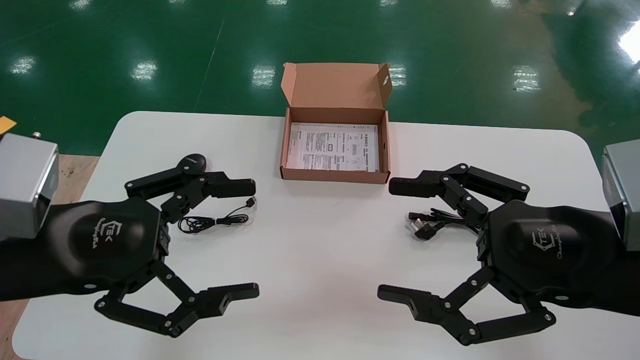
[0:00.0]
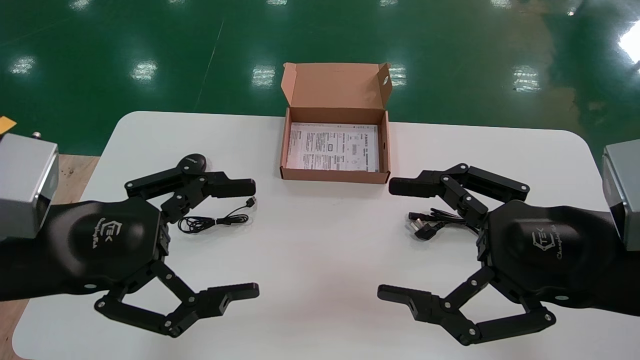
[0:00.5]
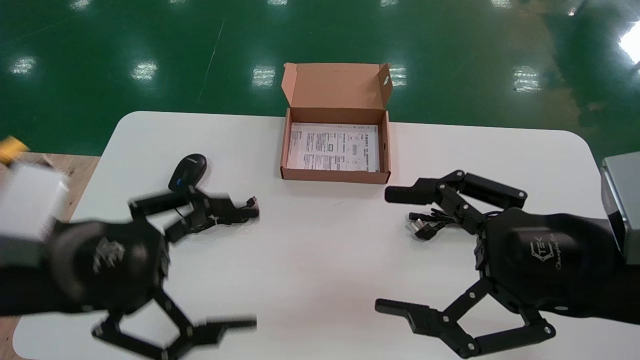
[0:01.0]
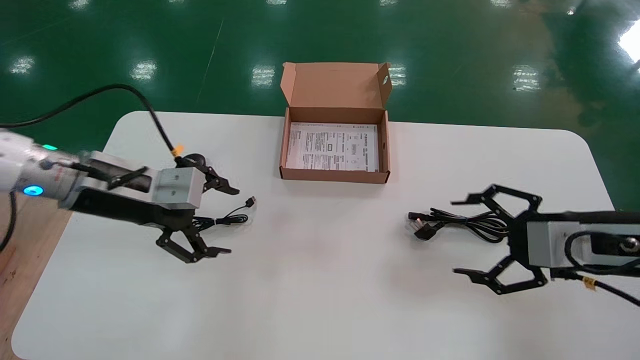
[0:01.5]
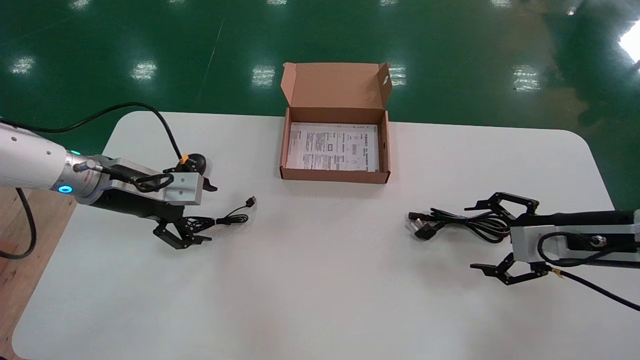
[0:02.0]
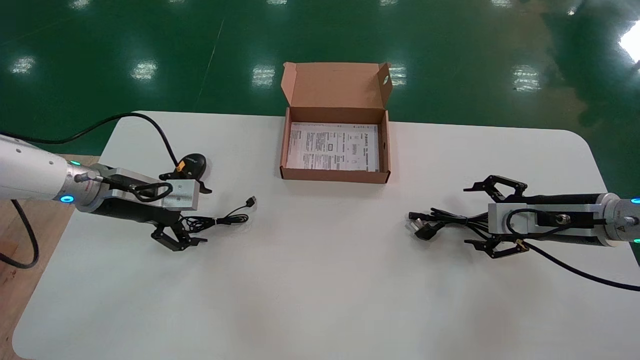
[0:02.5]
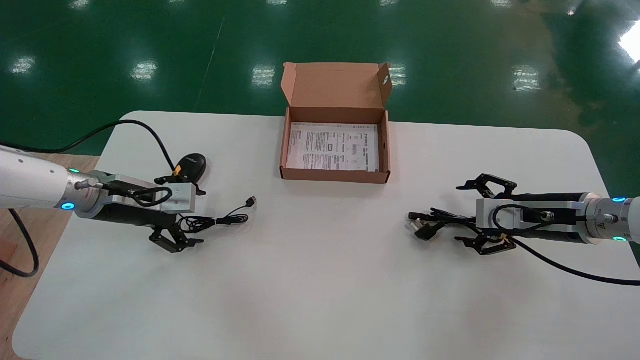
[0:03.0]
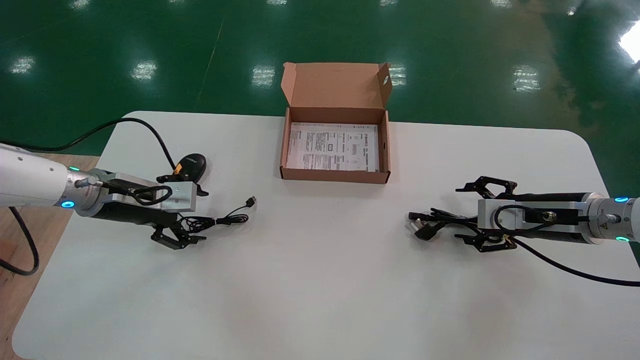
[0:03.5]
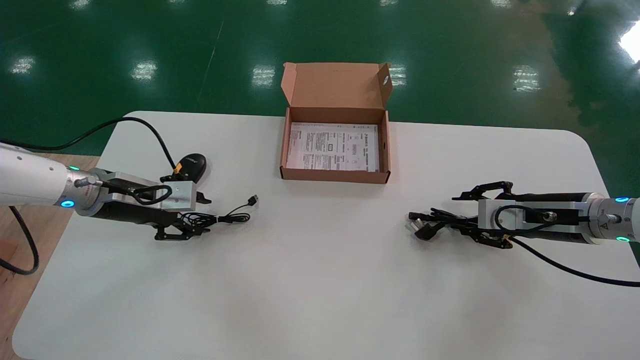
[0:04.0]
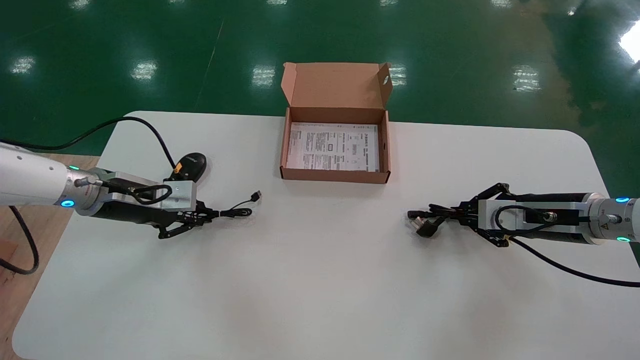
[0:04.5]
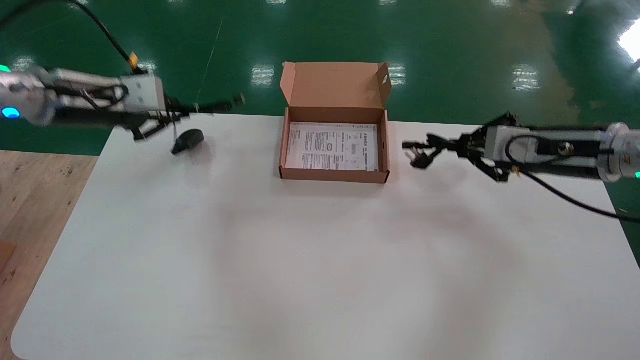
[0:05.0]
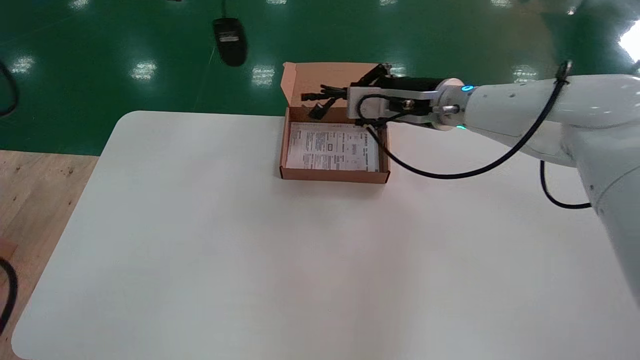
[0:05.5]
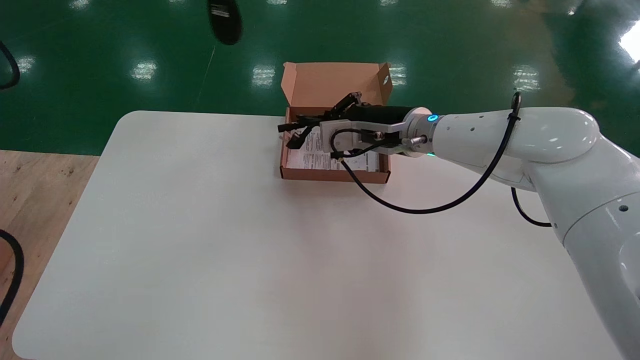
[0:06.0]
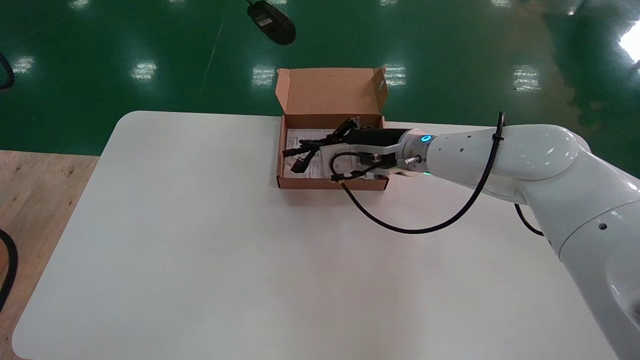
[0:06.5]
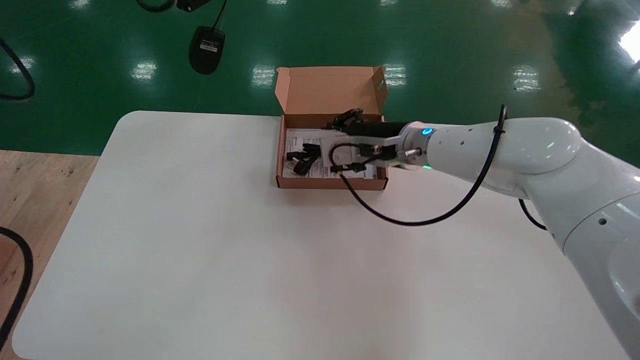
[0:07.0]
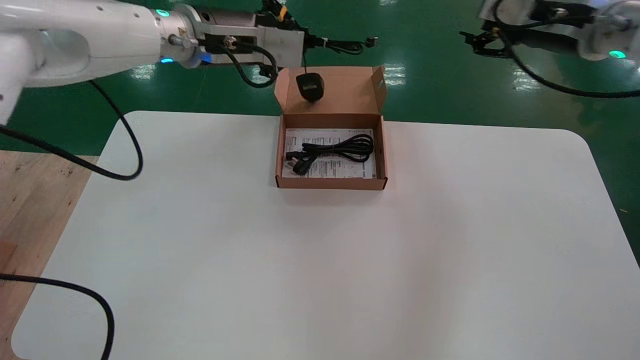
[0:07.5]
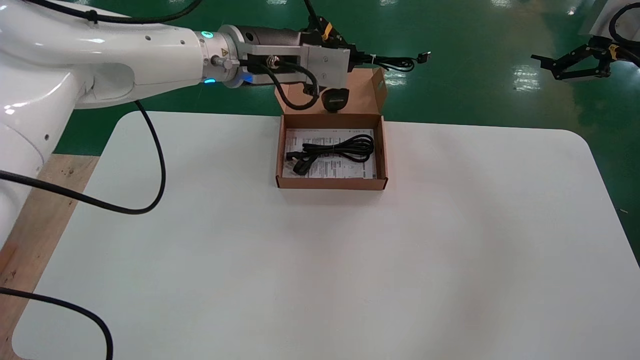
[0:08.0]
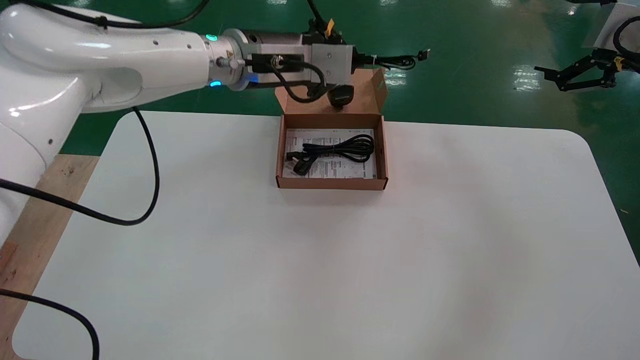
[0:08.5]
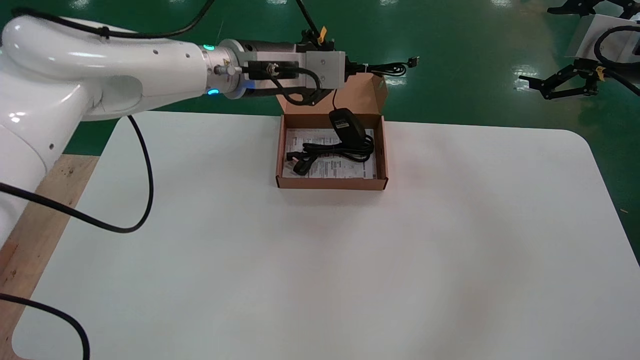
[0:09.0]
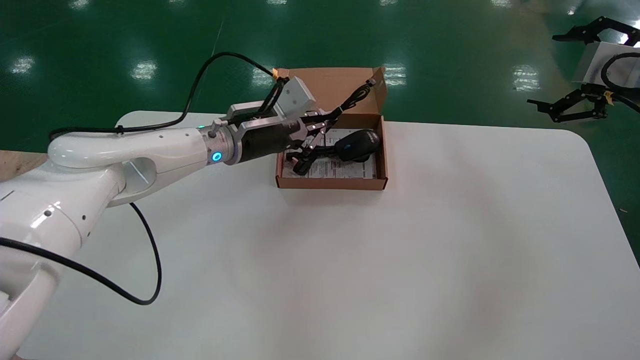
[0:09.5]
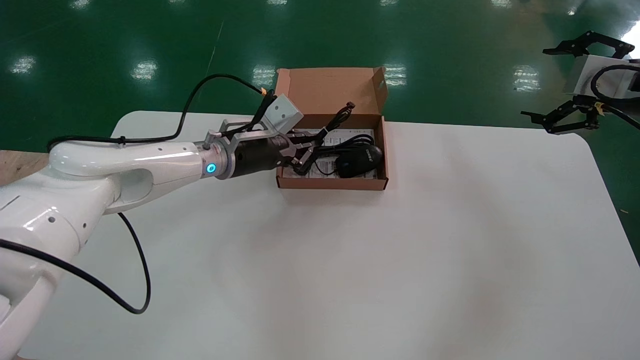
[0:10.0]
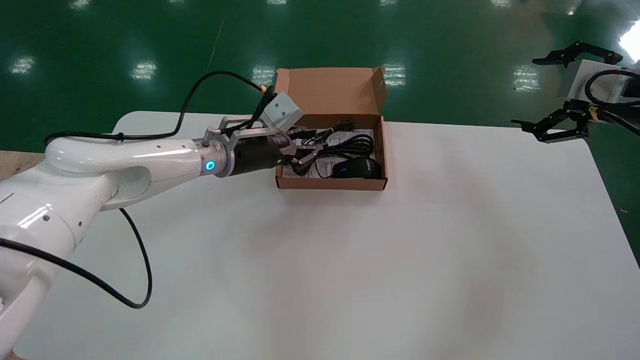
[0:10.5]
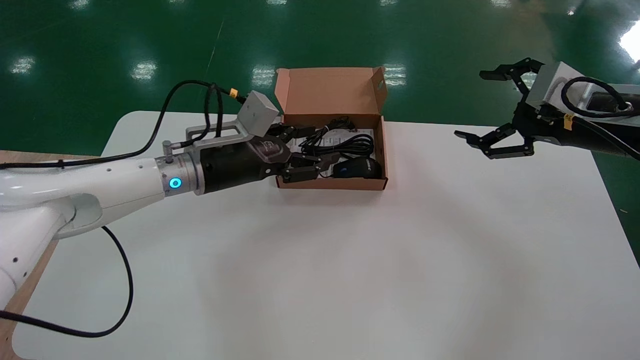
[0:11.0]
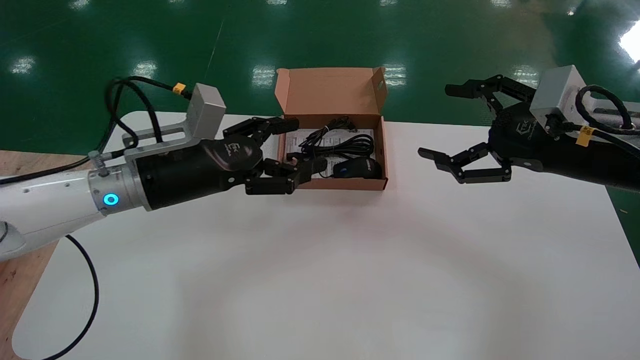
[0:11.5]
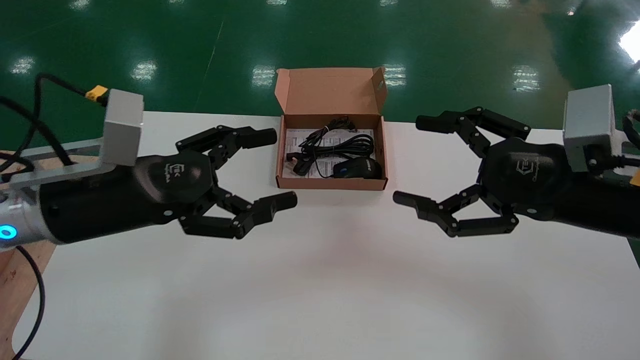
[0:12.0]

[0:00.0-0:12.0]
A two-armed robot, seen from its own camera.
Step, 0:01.5 to 0:04.5: Simultaneously pick up the mouse and power cord from the accessory packaging area.
Step, 0:05.0 to 0:10.5: Place the mouse and power cord into the box.
0:00.0 to 0:02.0: The right gripper is displaced forward, to the right and downward by approximately 20 cm; the left gripper heads forward, covering some 20 cm.
0:02.0 to 0:04.0: The left gripper closes, while the right gripper travels forward by approximately 5 cm, and closes up.
0:04.0 to 0:06.0: The right gripper is displaced to the left and upward by some 25 cm, and closes. The left gripper travels upward by approximately 30 cm, and closes.
0:06.0 to 0:08.0: The left gripper shifts about 20 cm to the right and downward, while the right gripper heads to the right and upward, covering approximately 30 cm, and opens up.
0:08.0 to 0:10.0: The right gripper goes roughly 5 cm downward; the left gripper is displaced downward by some 15 cm.
0:10.0 to 0:12.0: The right gripper goes about 20 cm to the left, backward and downward. The left gripper goes approximately 25 cm backward and to the left, and opens up.

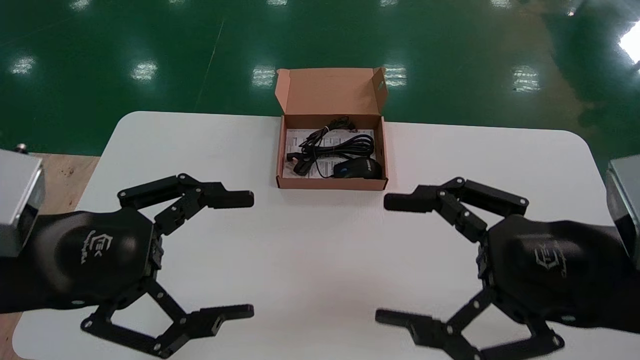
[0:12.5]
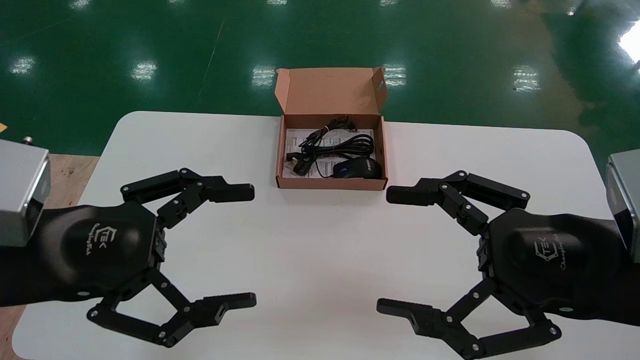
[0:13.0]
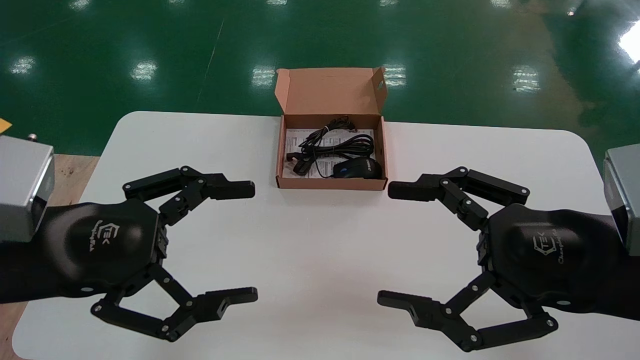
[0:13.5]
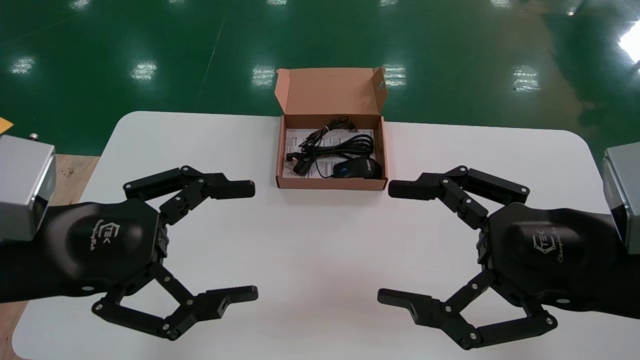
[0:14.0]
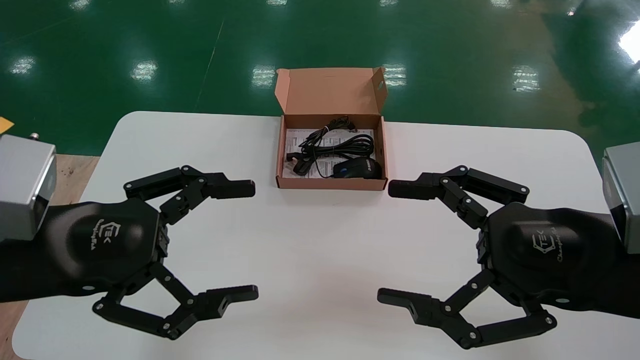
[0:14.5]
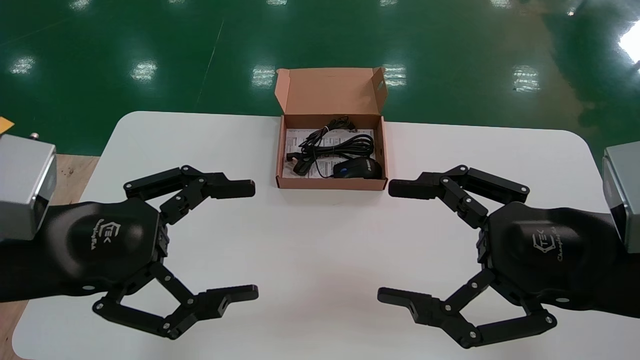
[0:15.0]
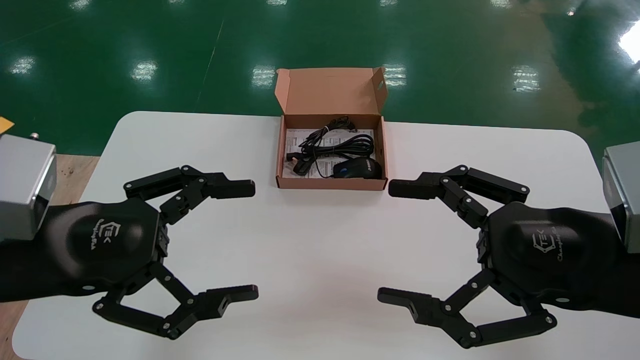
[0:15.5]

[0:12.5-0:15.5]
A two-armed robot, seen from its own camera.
0:12.5 to 0:15.5: Neither gripper changes place.
